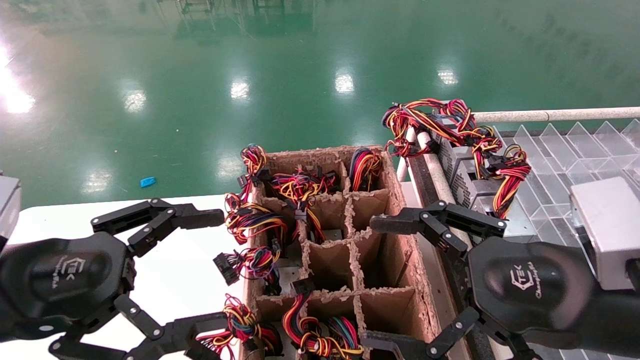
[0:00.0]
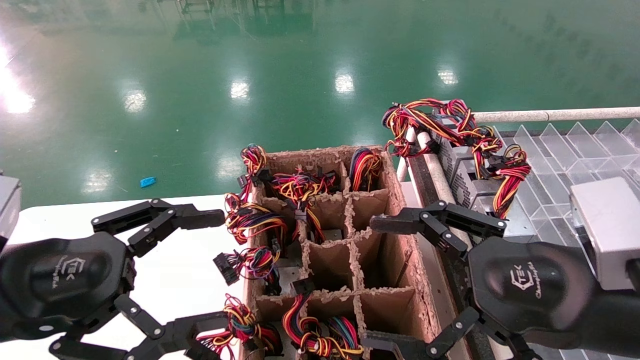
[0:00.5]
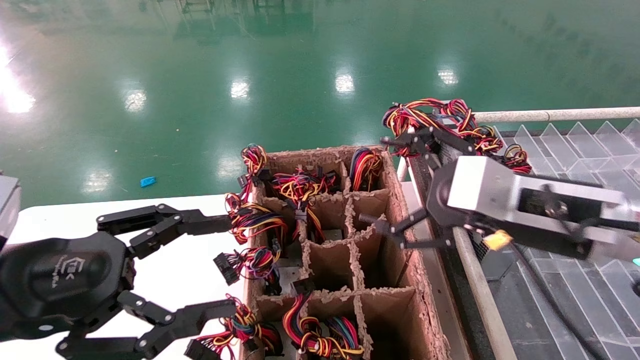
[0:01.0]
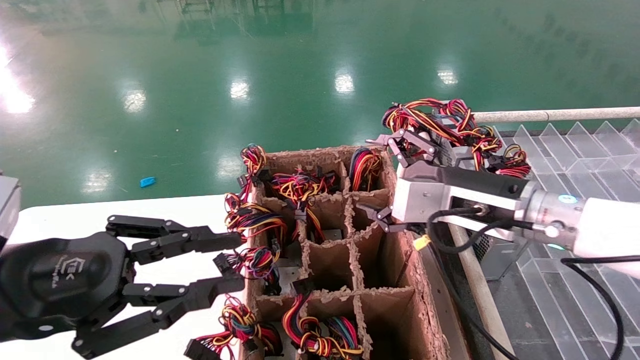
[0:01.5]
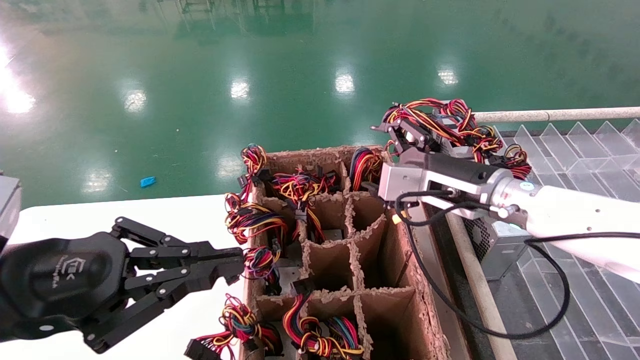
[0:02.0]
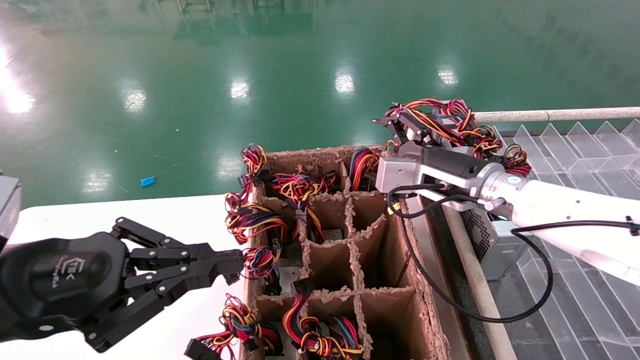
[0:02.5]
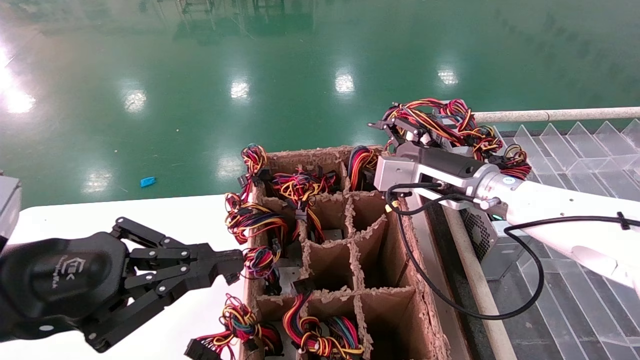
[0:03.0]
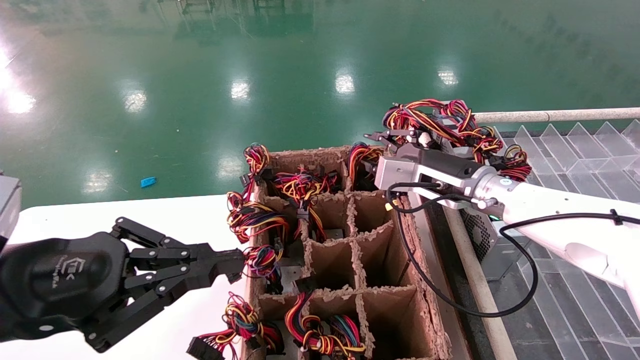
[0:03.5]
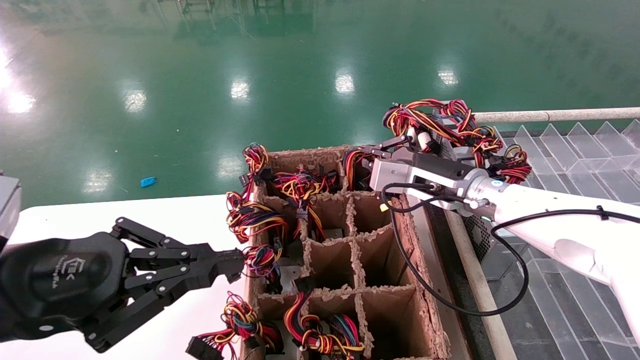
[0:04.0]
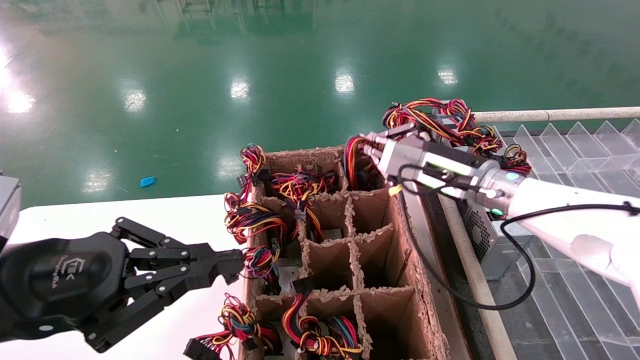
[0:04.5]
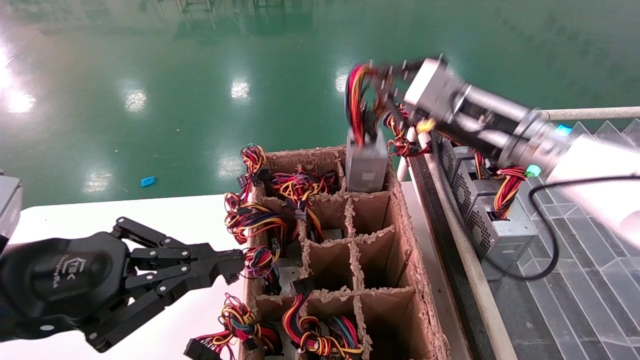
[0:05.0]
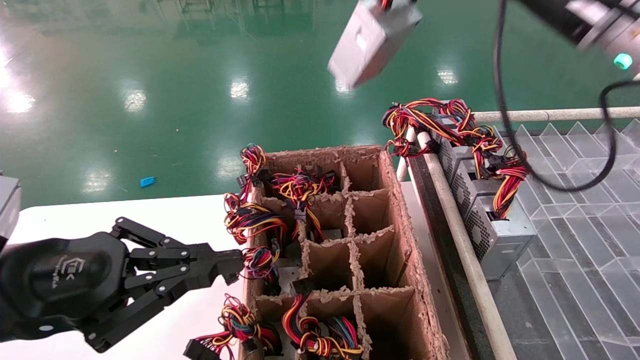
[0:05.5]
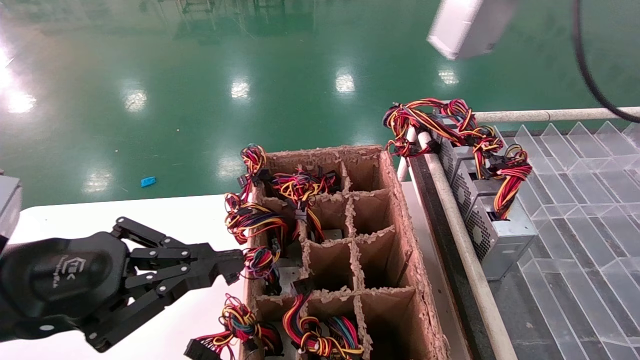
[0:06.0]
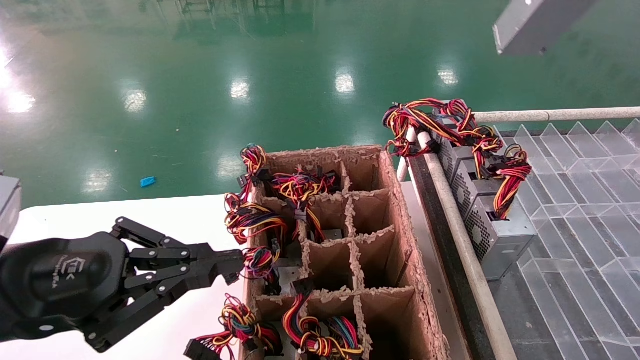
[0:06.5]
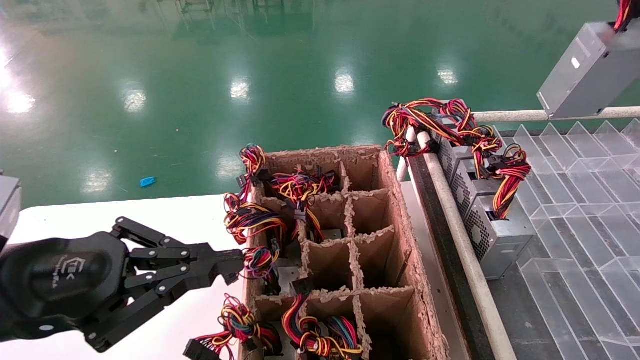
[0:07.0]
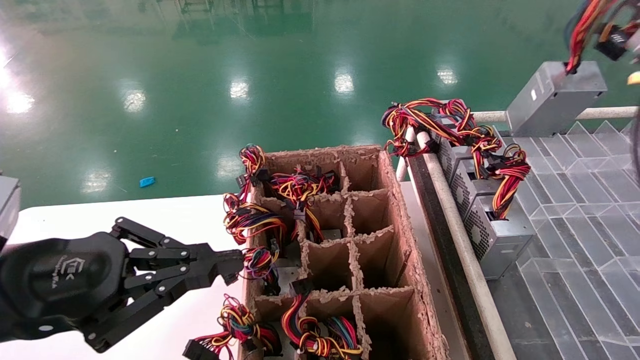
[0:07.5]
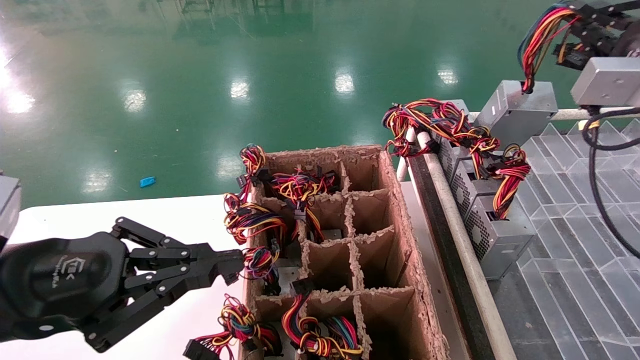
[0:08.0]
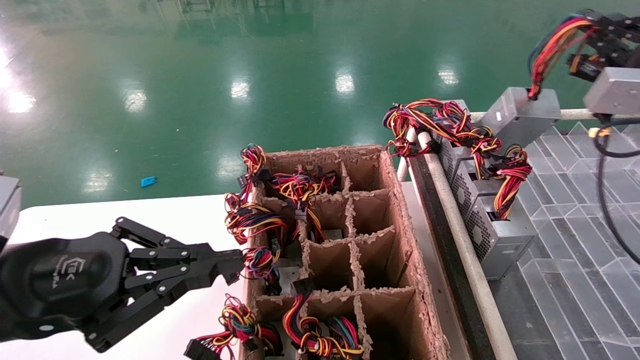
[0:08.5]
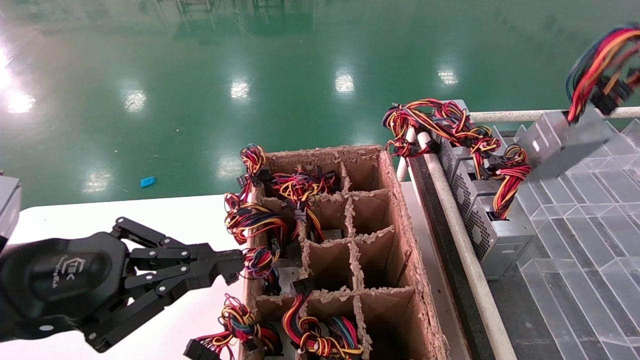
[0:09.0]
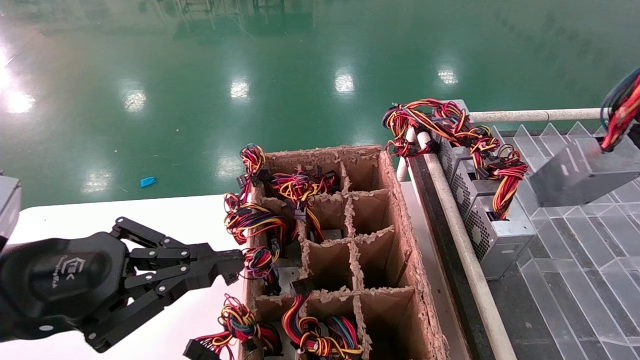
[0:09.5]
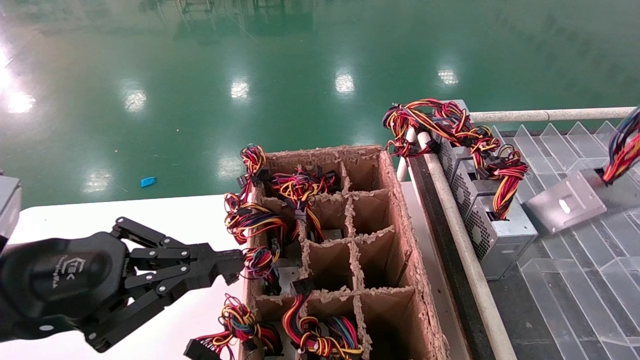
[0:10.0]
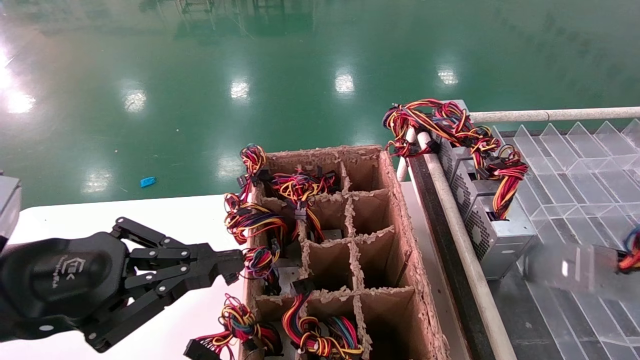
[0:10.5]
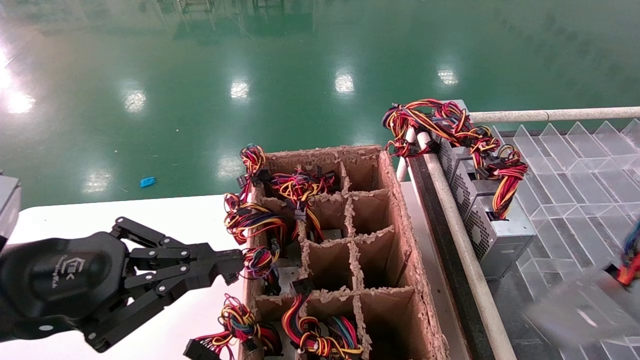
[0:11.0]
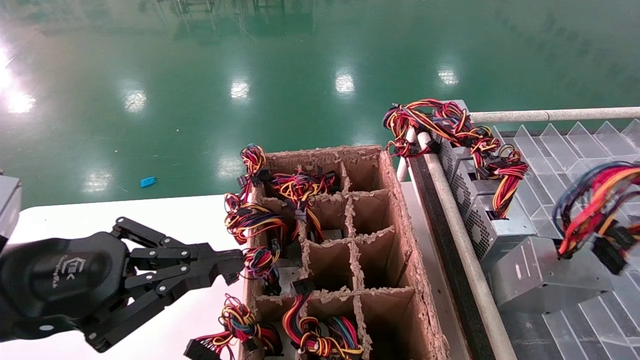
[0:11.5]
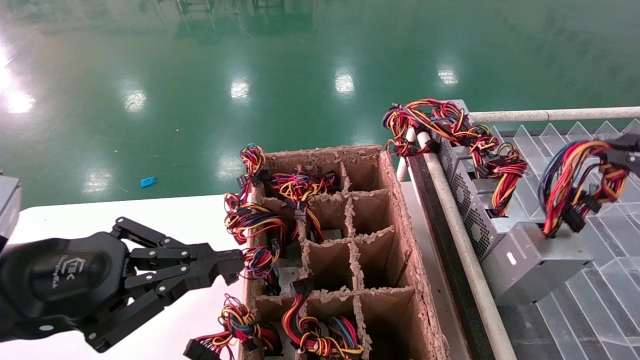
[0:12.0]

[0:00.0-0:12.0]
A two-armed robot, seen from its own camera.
Step, 0:01.5 to 0:04.0: Grab the main unit power supply from the containment box.
0:00.0 to 0:02.0: The right gripper shifts some 20 cm forward; the left gripper closes up.
0:02.0 to 0:04.0: The right gripper moves forward, about 5 cm, and closes its fingers.
0:04.0 to 0:06.0: The right gripper goes some 30 cm upward, backward and to the right.
0:06.0 to 0:08.0: The right gripper is displaced downward and to the right by about 15 cm.
0:08.0 to 0:10.0: The right gripper shifts about 15 cm backward.
0:10.0 to 0:12.0: The right gripper moves roughly 5 cm backward and comes back.

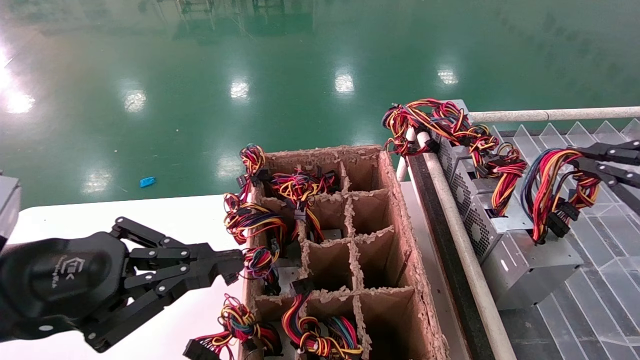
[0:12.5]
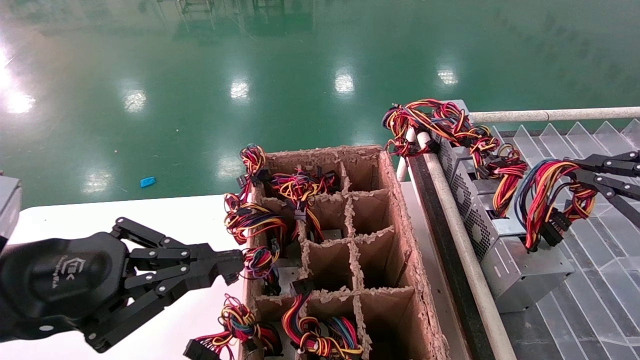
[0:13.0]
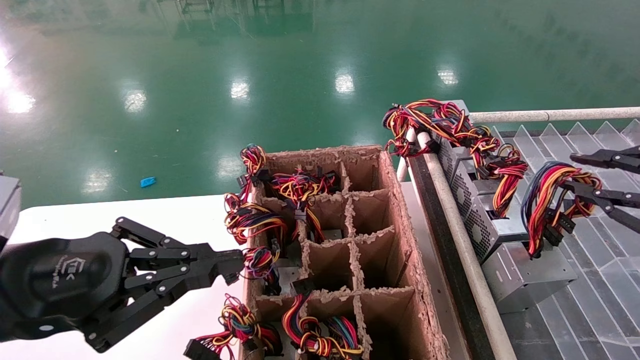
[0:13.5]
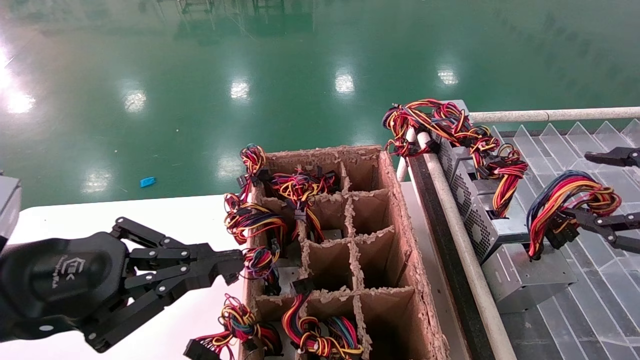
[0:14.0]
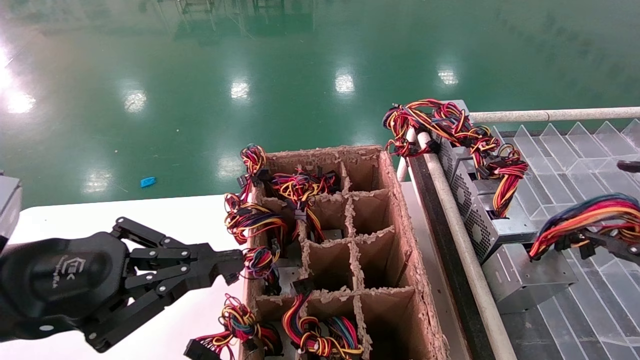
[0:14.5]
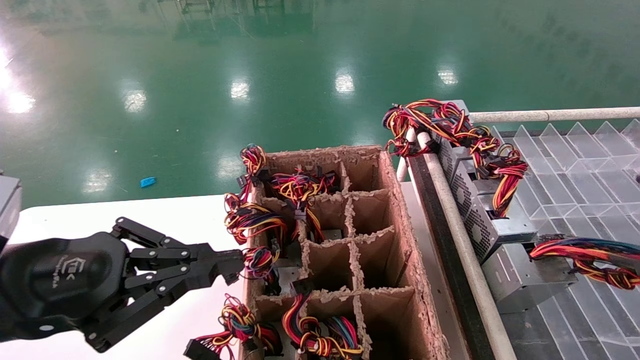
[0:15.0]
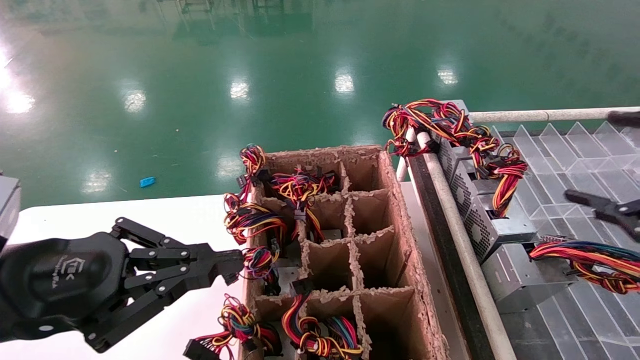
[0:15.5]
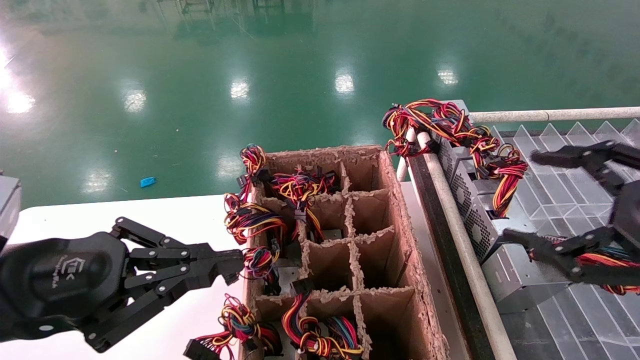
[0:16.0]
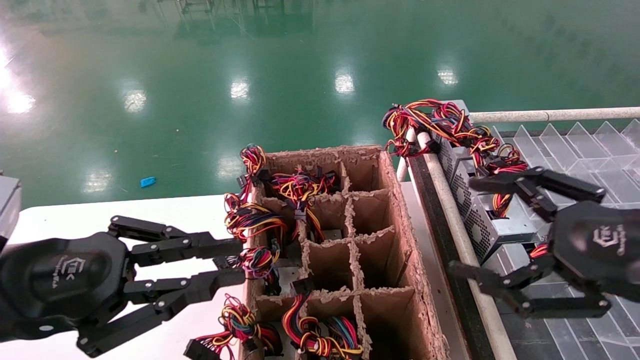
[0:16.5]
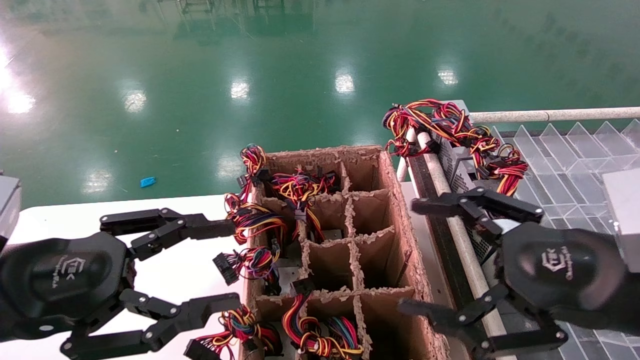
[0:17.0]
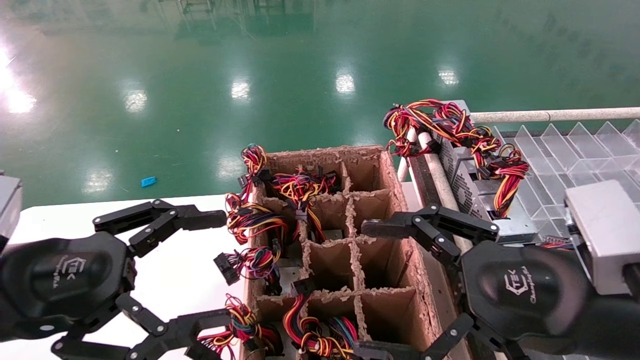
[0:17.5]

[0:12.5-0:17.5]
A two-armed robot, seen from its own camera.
Step, 0:12.5 to 0:15.0: Place the main unit power supply in the designated area.
0:12.5 to 0:15.0: The right gripper travels backward by about 5 cm, and opens up.
0:15.0 to 0:17.5: The left gripper opens up, while the right gripper moves to the left, some 20 cm.
